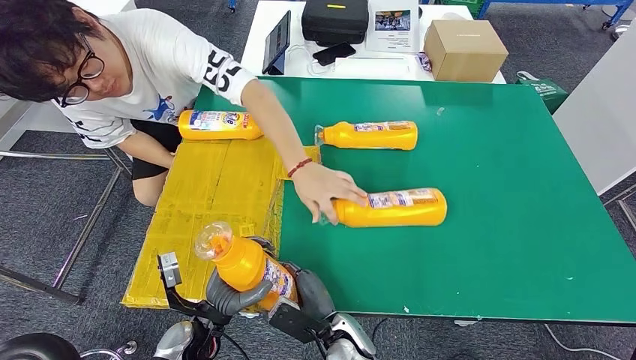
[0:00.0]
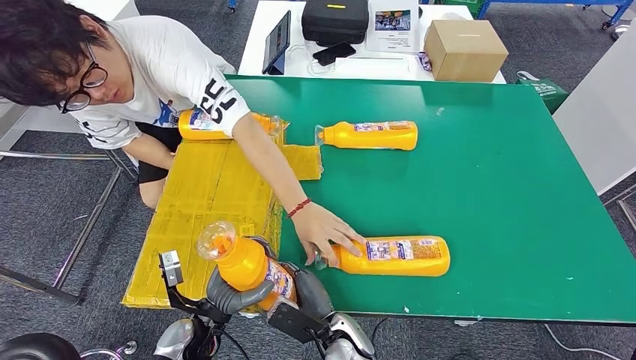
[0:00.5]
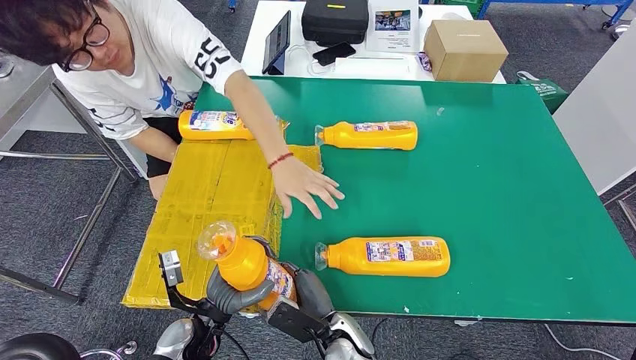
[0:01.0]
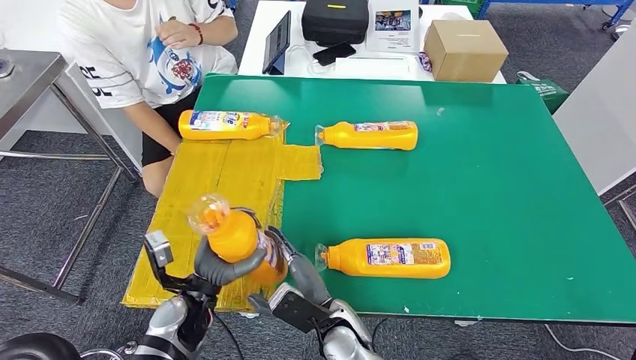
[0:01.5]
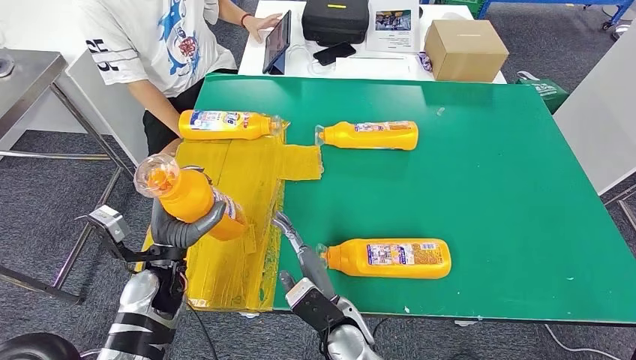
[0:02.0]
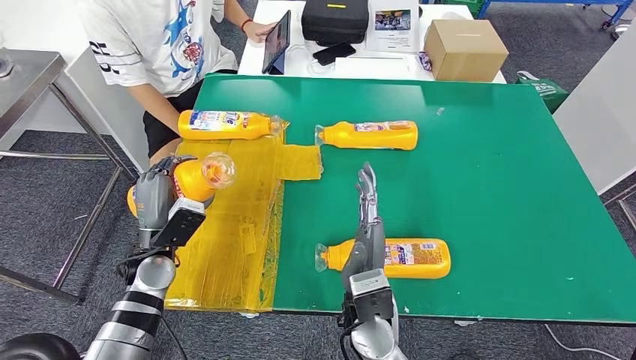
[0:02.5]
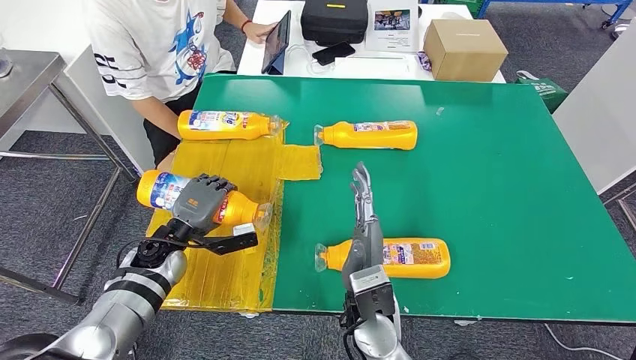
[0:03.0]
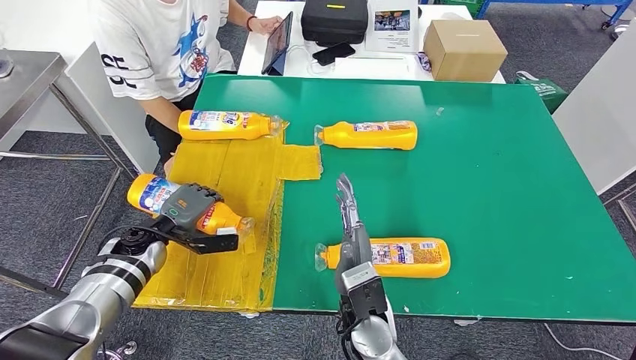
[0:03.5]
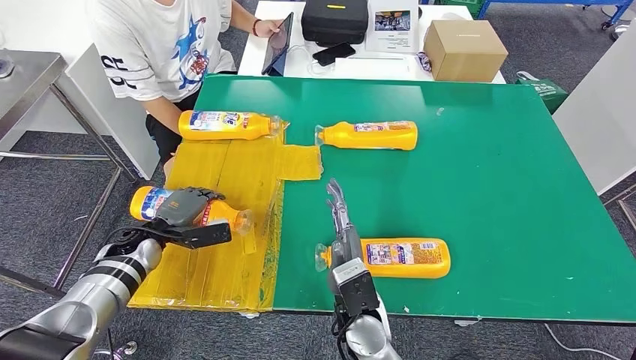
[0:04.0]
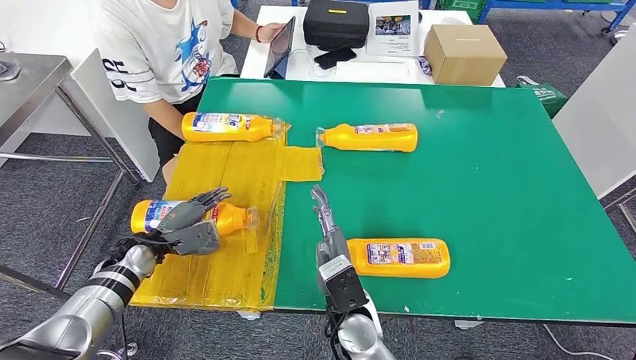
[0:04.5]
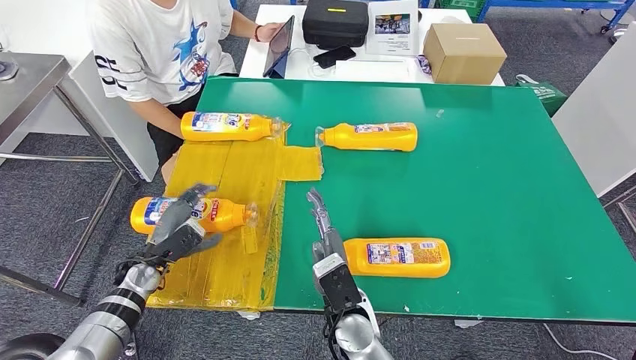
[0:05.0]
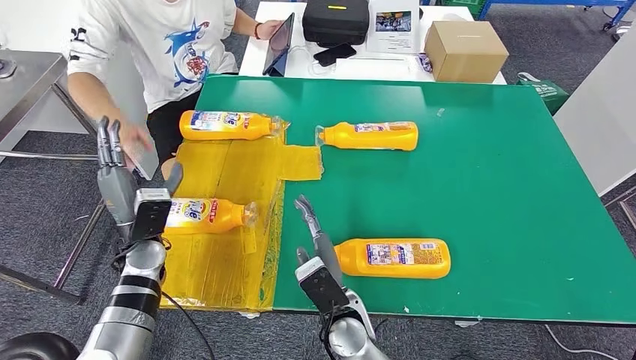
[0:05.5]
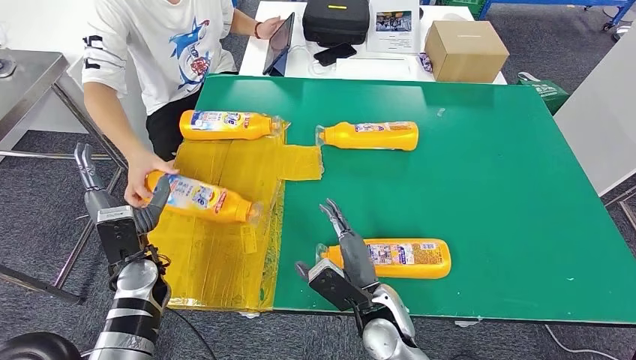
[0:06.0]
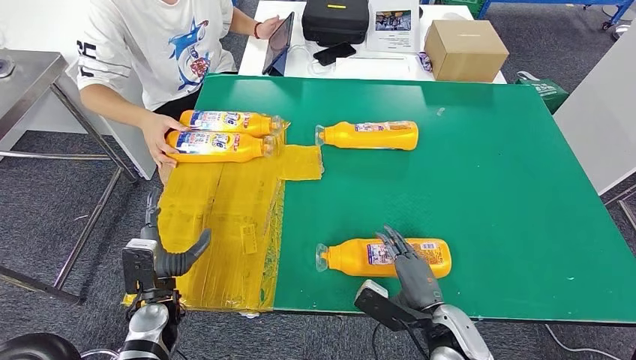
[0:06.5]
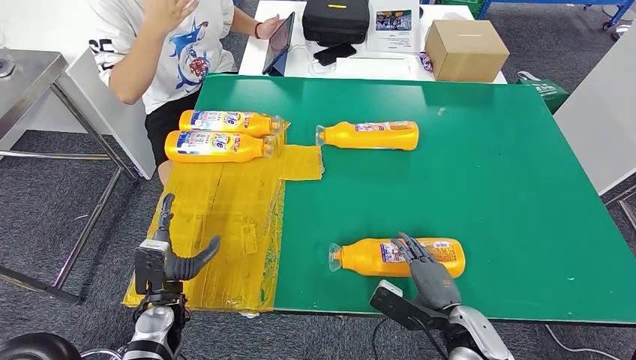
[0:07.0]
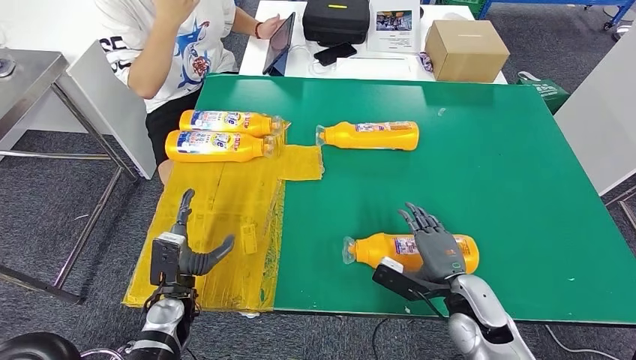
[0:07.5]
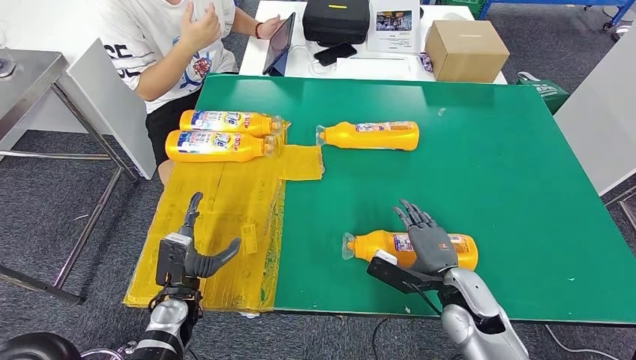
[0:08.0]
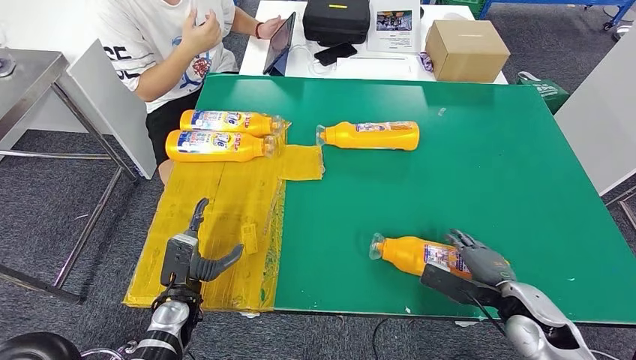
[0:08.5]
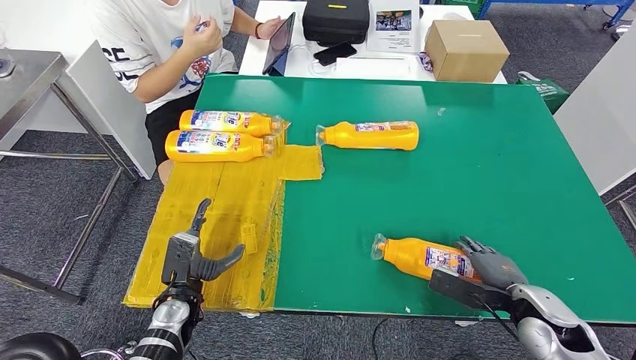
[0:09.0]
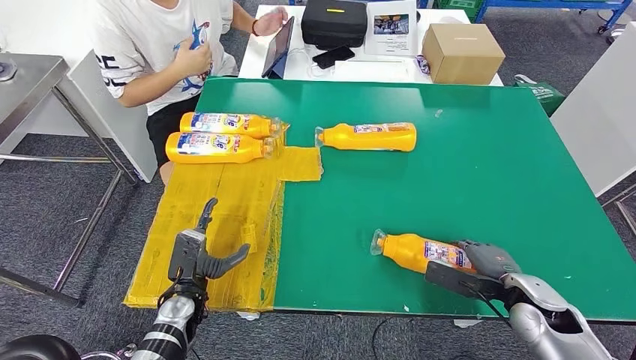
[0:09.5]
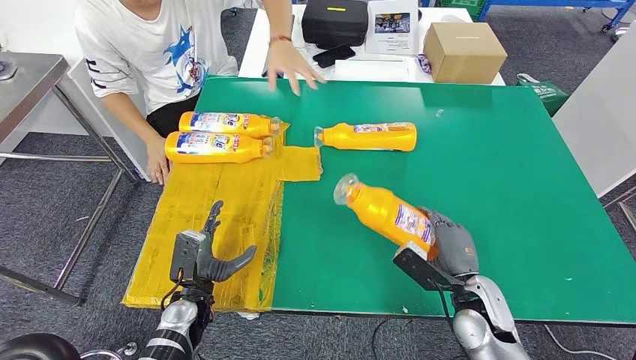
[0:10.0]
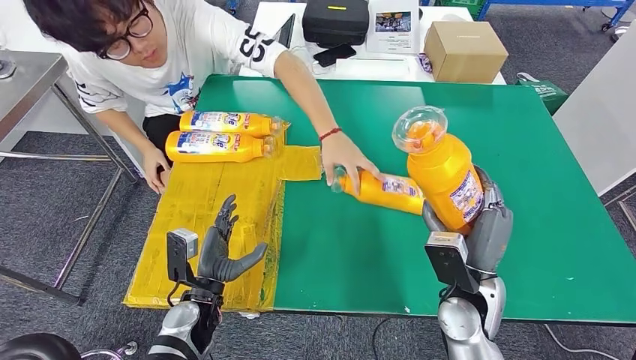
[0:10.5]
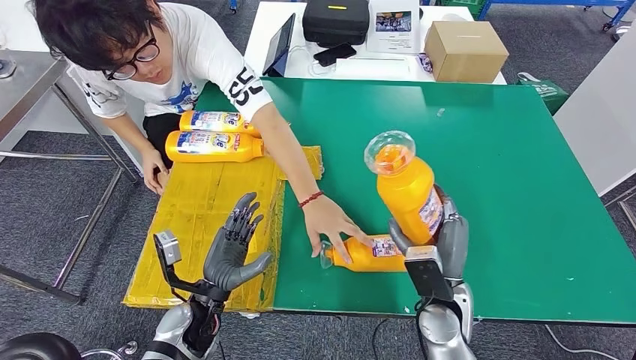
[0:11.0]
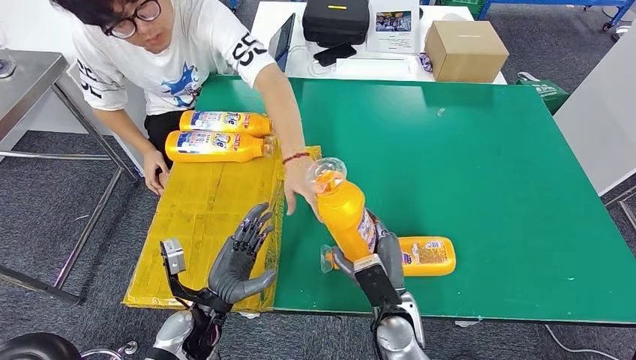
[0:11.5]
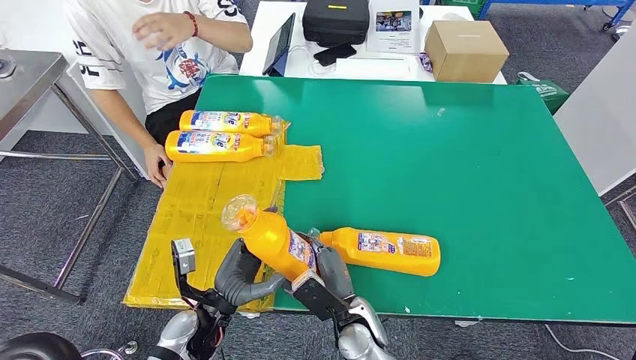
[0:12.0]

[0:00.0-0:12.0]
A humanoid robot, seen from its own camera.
Step, 0.0 to 5.0 s: Flip the fast-moving consumer goods bottle to the front side.
Step, 5.5 to 10.5 s: Pick up the fast-moving consumer goods bottle from the table.
2.0 to 4.0 s: The left hand shifts about 10 cm forward and to the left.
4.0 to 6.0 s: The left hand is displaced backward by about 5 cm. The right hand changes place by approximately 5 cm.

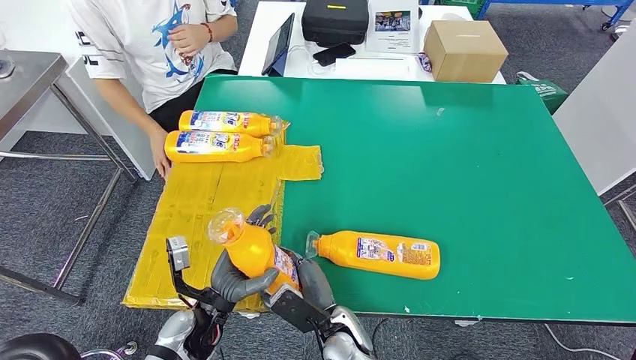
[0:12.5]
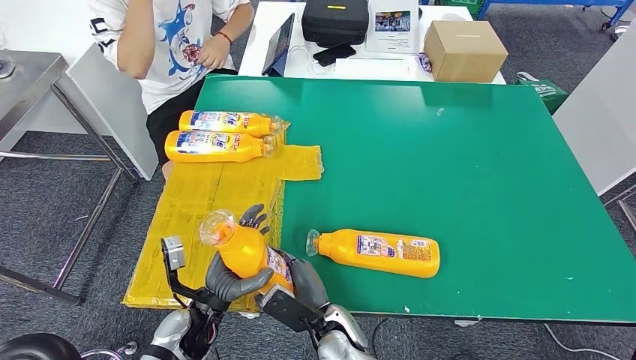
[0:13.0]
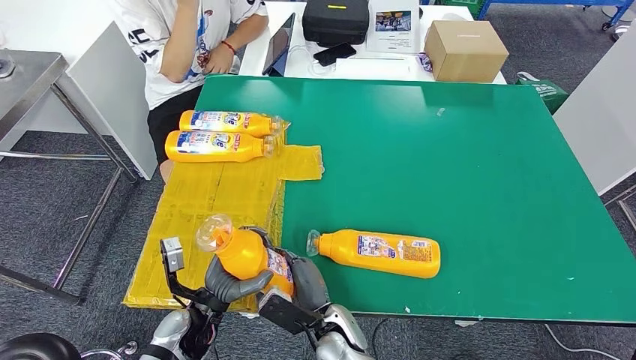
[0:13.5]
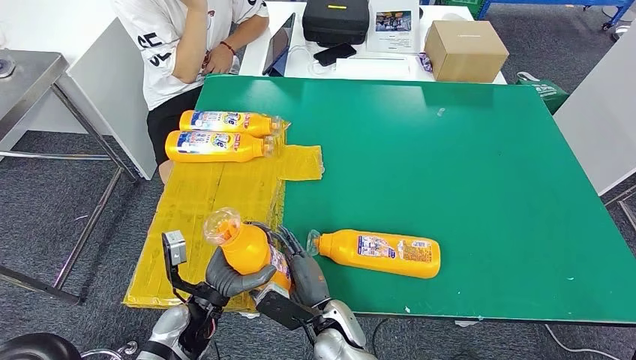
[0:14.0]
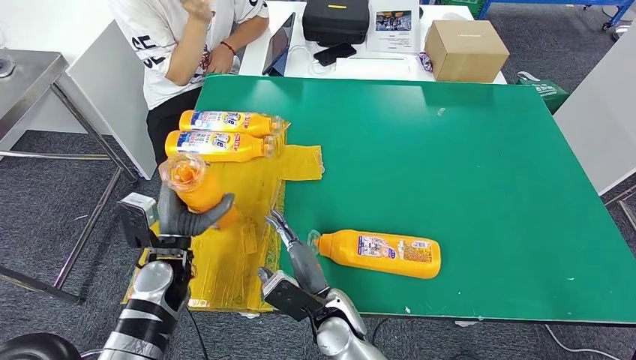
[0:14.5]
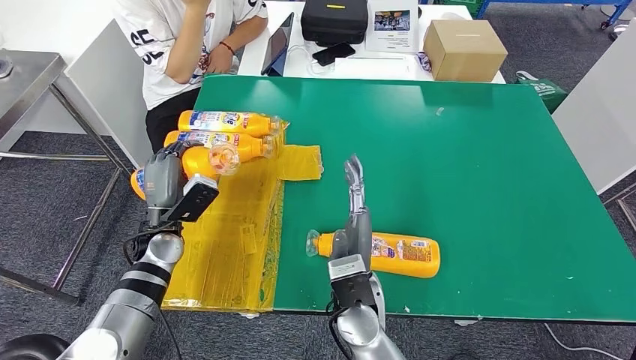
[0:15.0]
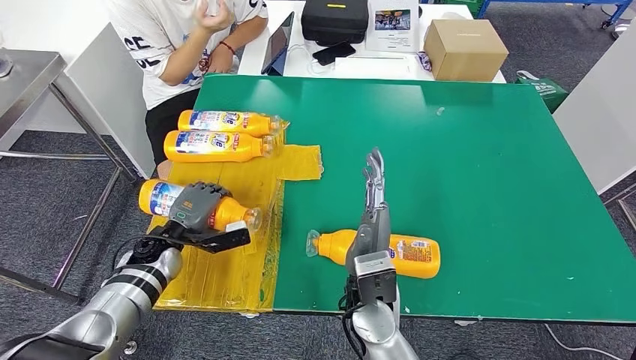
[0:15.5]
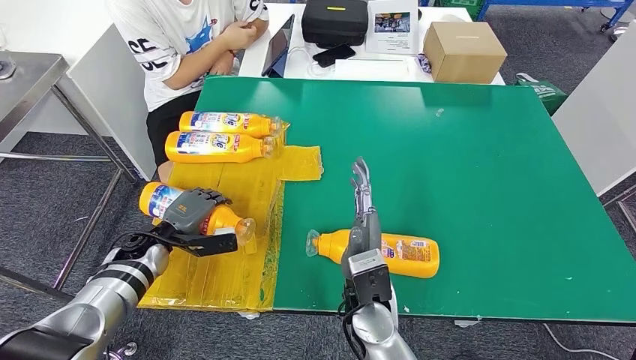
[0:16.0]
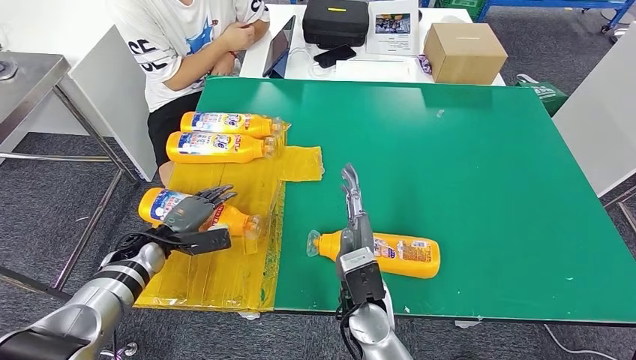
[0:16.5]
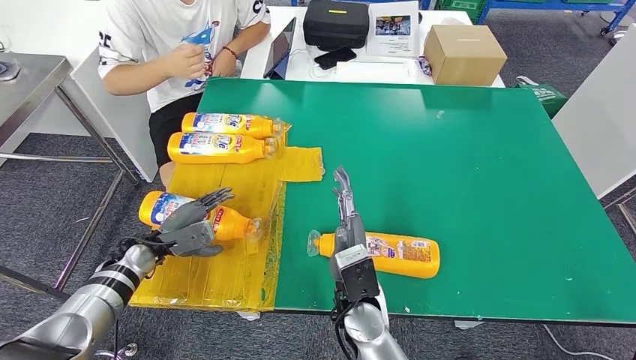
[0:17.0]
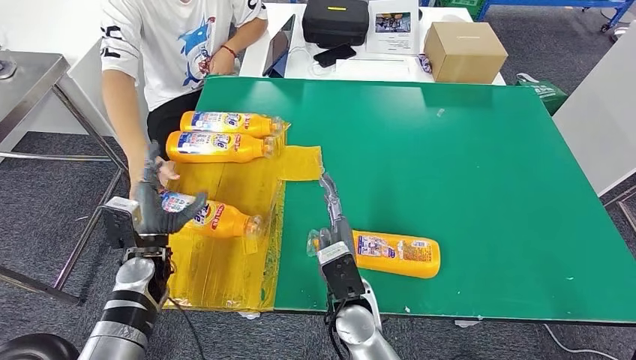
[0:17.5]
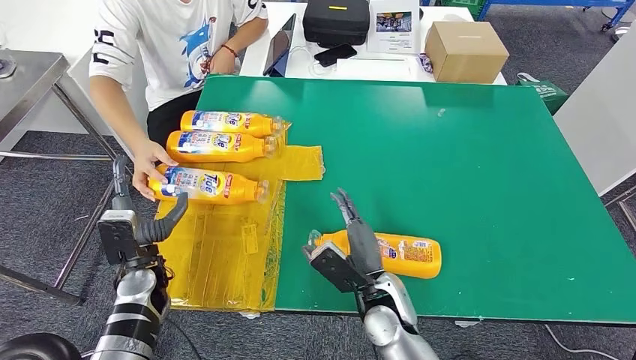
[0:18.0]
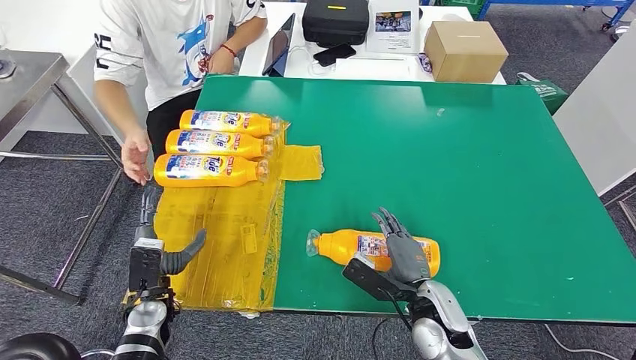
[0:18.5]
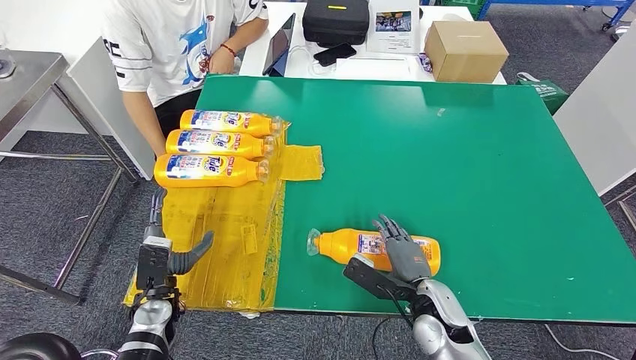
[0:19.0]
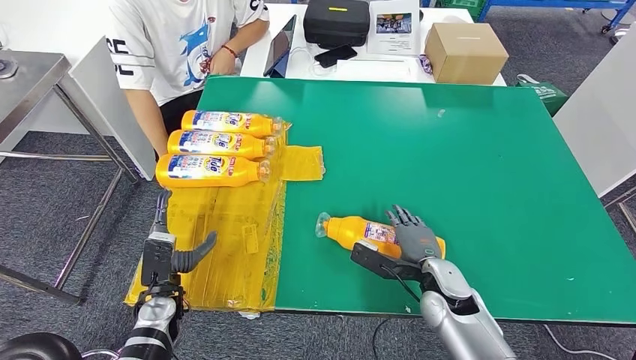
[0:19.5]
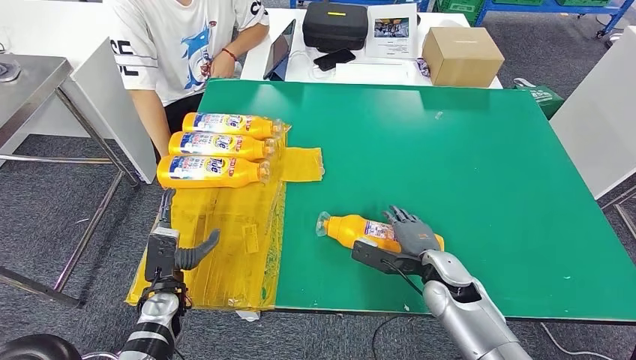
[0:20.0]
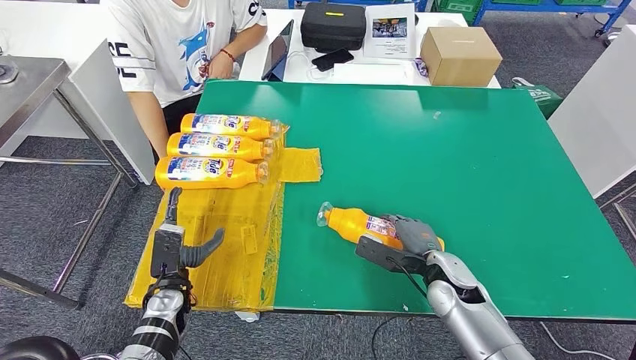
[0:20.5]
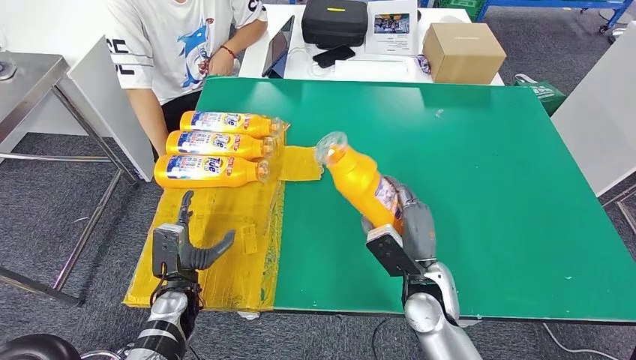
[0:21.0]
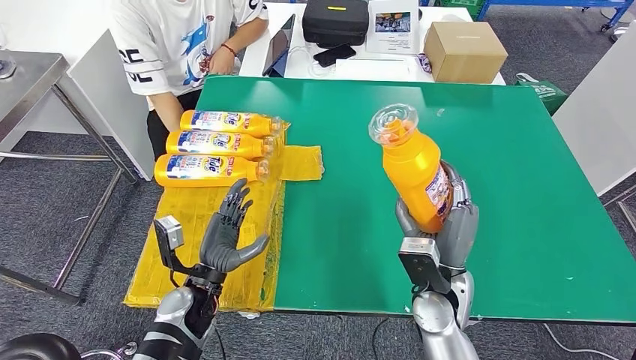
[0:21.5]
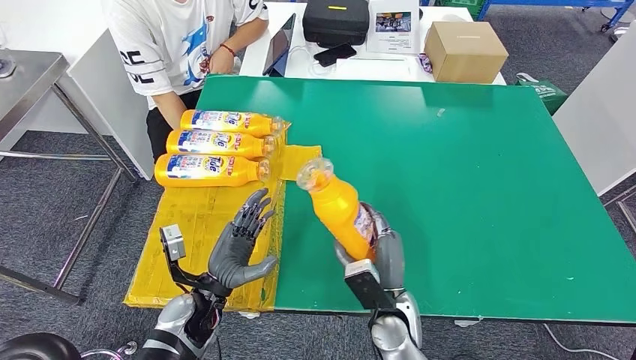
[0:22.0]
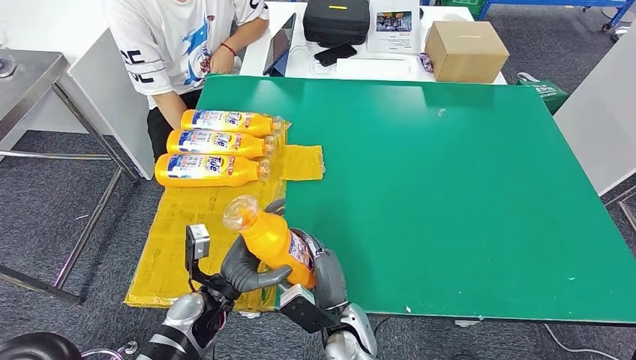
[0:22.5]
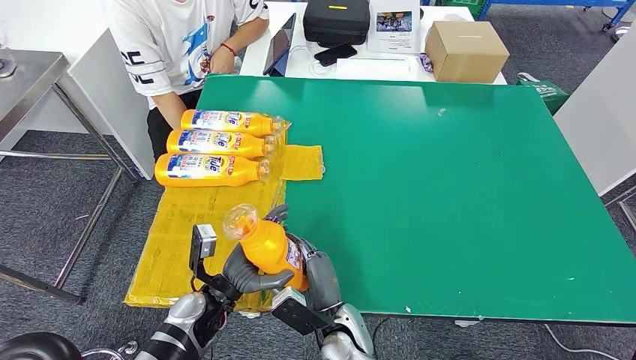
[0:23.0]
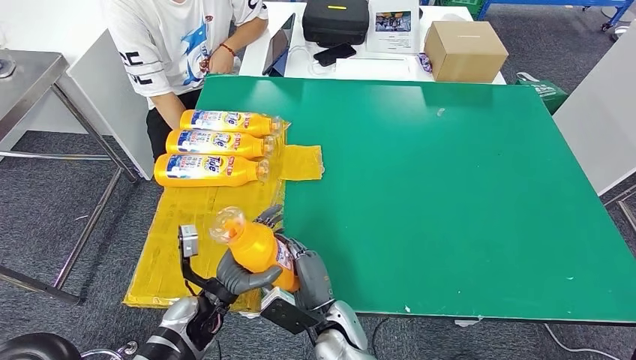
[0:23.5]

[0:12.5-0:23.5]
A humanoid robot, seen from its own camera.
Step, 12.5 to 17.5 s: Flip the fast-moving consumer goods bottle to the front side.
Step, 18.0 to 21.5 s: Pick up the fast-moving consumer goods bottle from the table.
12.5 to 14.5 s: The left hand is displaced forward, upward and to the left by about 10 cm.
14.5 to 16.0 s: The right hand heads upward, covering some 5 cm; the left hand heads to the left and forward, covering roughly 10 cm.
16.0 to 18.0 s: The left hand is displaced backward by some 5 cm; the right hand changes place by approximately 5 cm.
21.5 to 23.5 s: The right hand is displaced to the left and downward by approximately 20 cm.
